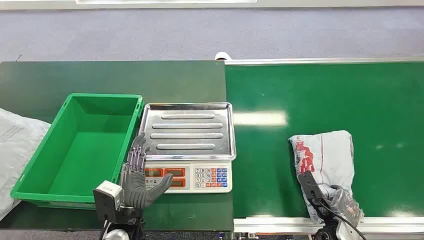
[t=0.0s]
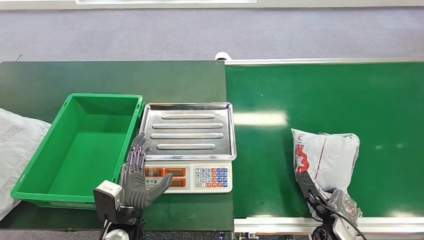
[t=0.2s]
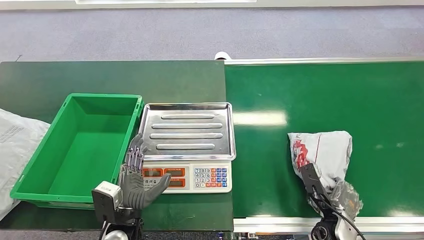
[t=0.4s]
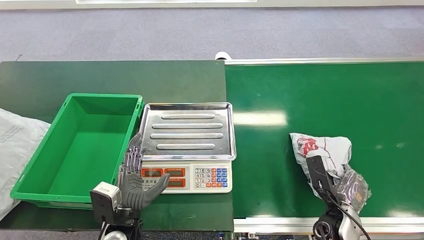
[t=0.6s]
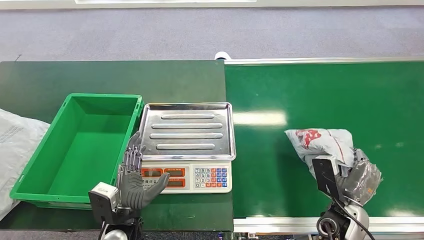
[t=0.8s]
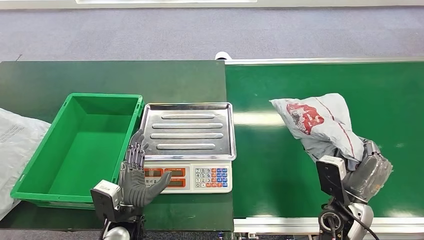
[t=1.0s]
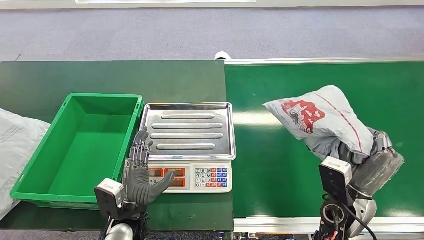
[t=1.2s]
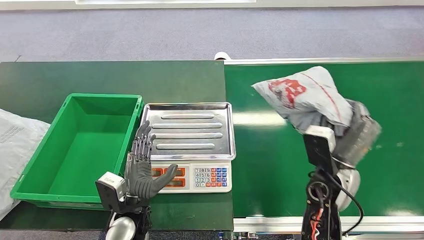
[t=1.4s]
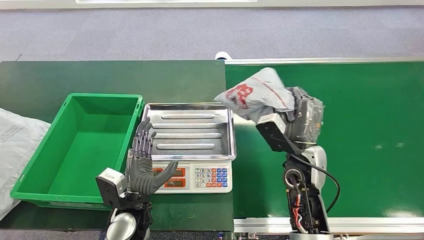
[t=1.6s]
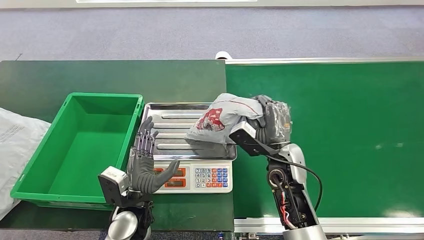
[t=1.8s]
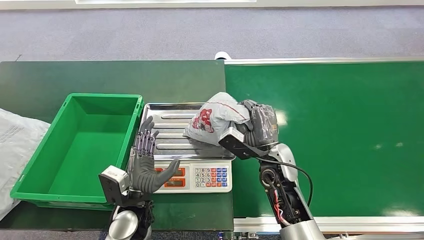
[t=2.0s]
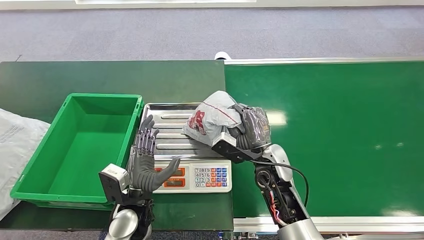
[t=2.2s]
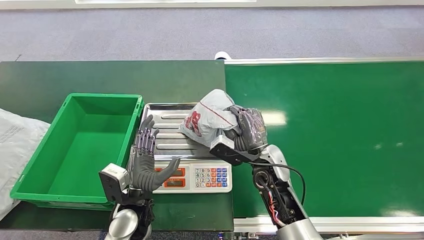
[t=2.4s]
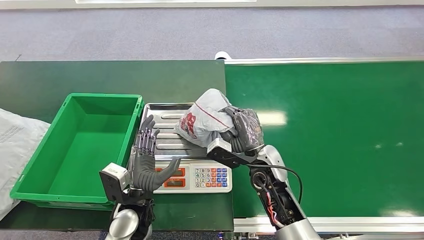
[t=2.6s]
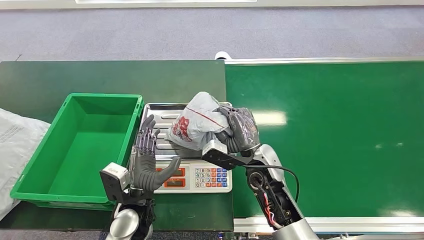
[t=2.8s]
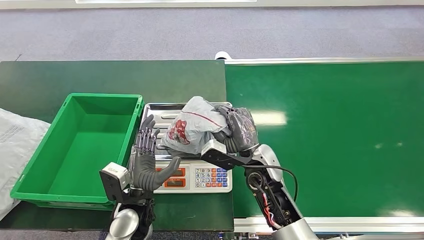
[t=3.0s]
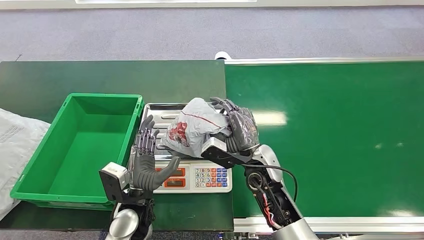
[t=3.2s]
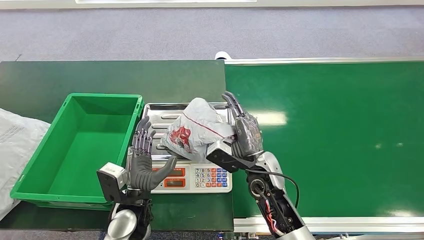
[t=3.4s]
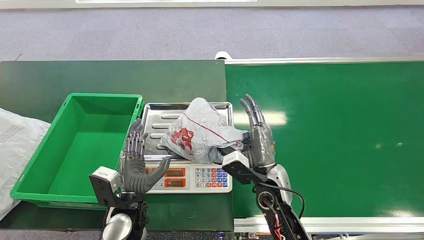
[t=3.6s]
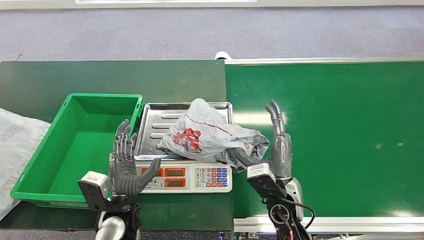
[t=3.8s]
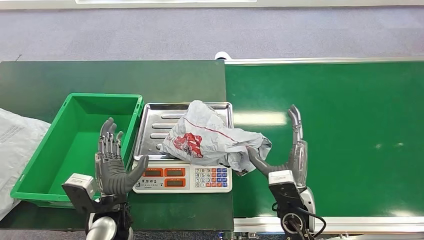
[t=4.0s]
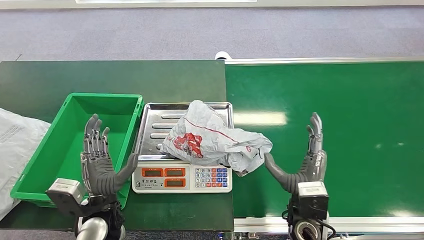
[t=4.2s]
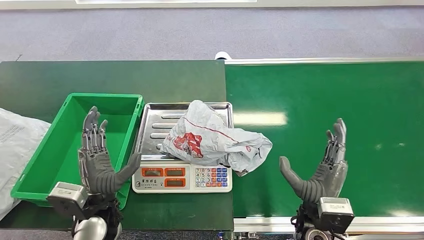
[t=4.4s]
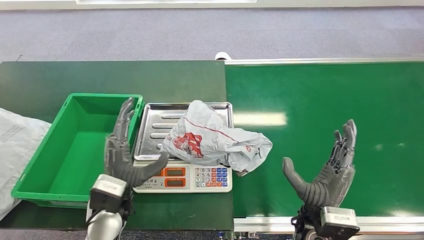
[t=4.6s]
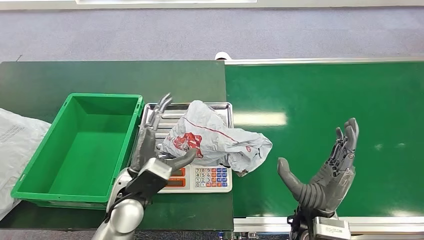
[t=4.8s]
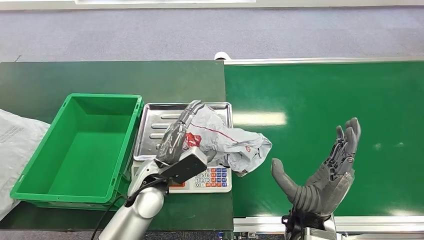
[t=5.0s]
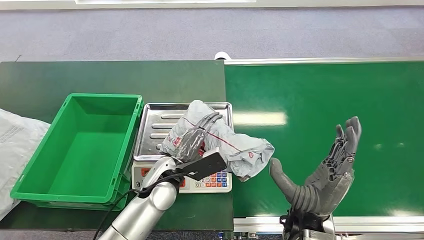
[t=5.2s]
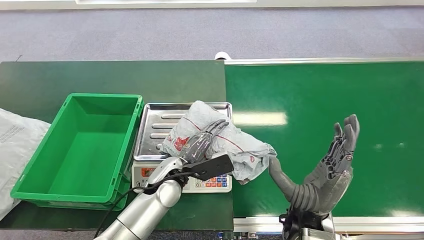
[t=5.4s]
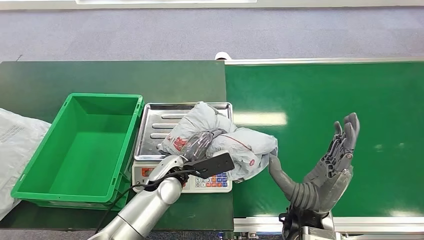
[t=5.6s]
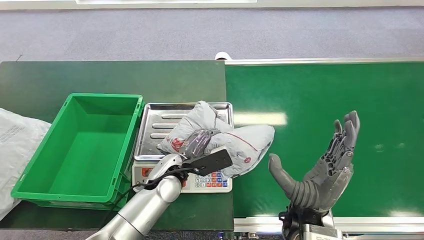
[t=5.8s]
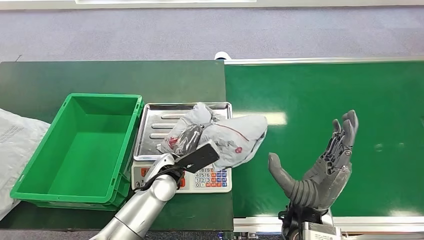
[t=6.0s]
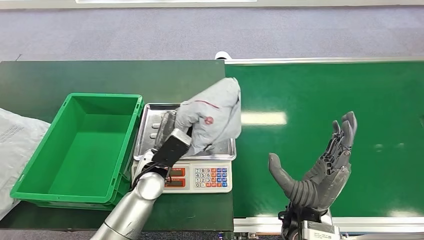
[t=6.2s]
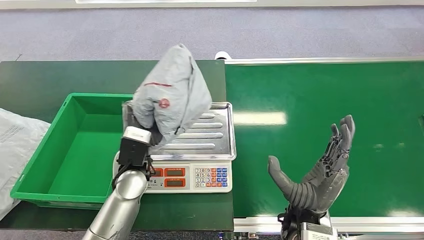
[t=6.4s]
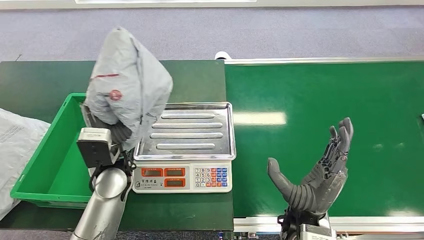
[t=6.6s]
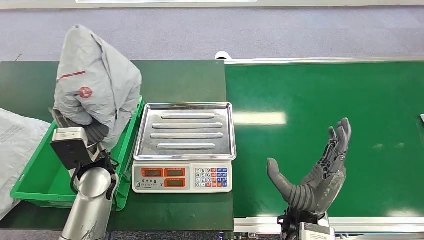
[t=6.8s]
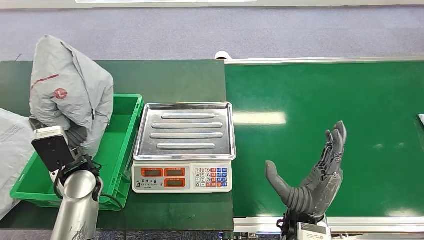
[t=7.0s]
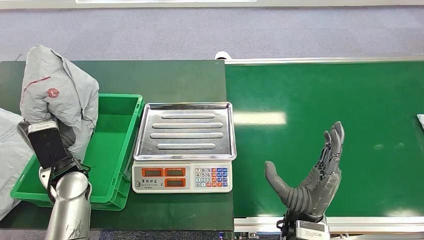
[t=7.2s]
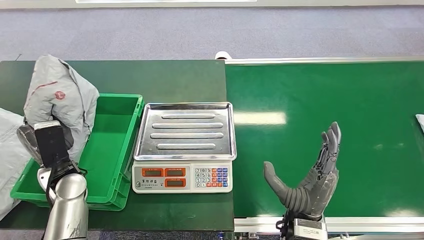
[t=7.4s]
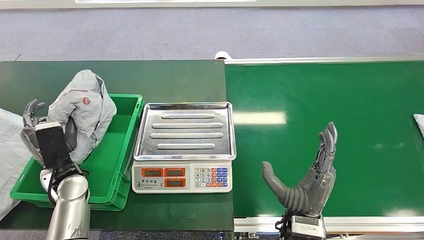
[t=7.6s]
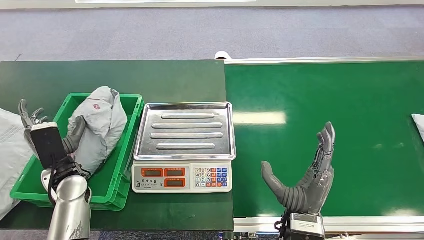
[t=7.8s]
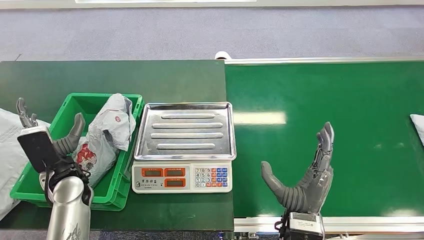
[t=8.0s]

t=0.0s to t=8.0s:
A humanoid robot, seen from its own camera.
Step, t=0.0s to t=1.0s: Pick up the package from the conveyor belt.
Step, t=1.8s to t=3.4s: Place the package onto the inbound machine.
Step, t=5.8s to t=6.4s: Pick up the package from the inbound machine.
Step, t=7.2s to t=8.0s: Place the package into the parcel locker.
t=1.6s to t=3.2s: The right hand goes roughly 10 cm to the left.
t=3.2s to t=4.8s: The left hand shifts roughly 5 cm upward; the right hand goes about 15 cm backward and to the right.
t=4.8s to t=6.4s: The left hand heads forward, covering some 5 cm.

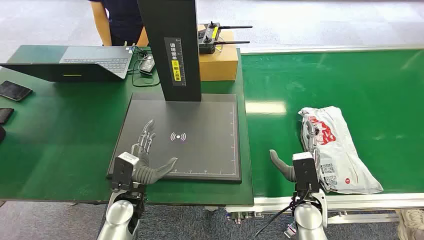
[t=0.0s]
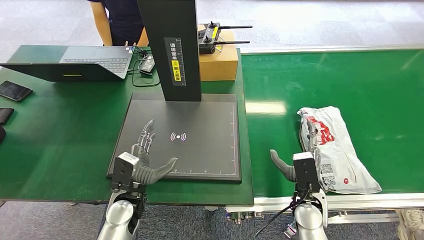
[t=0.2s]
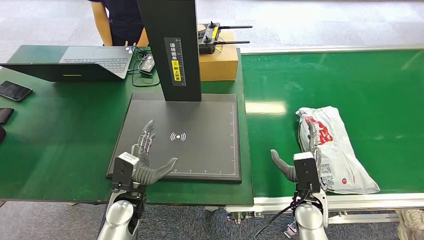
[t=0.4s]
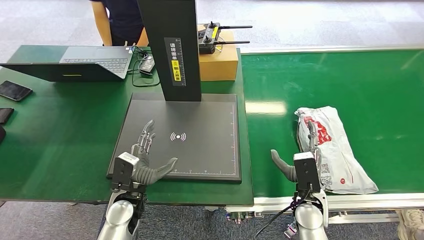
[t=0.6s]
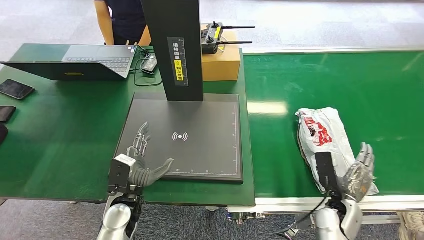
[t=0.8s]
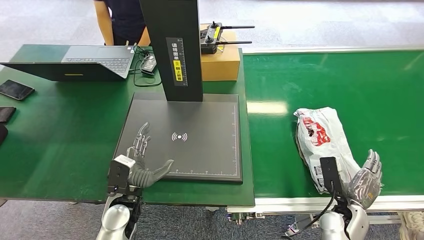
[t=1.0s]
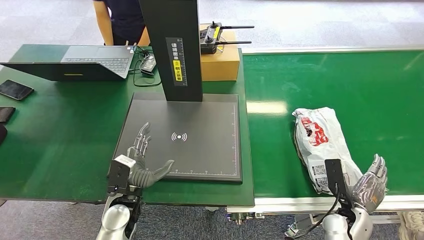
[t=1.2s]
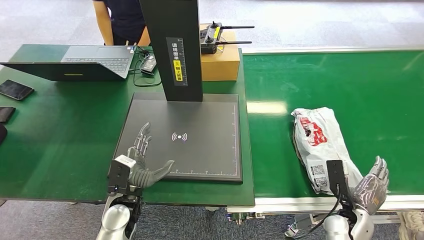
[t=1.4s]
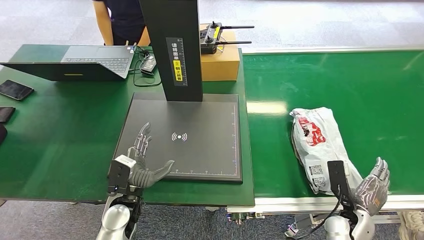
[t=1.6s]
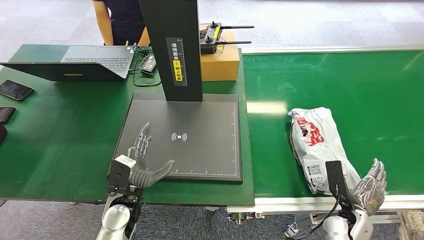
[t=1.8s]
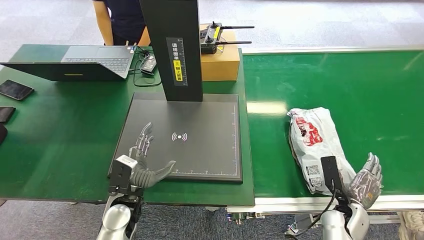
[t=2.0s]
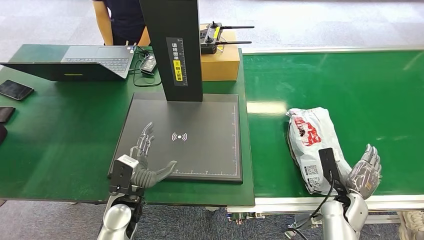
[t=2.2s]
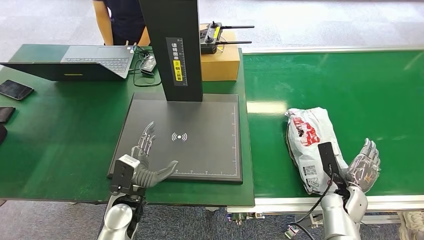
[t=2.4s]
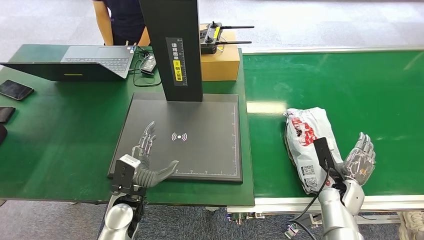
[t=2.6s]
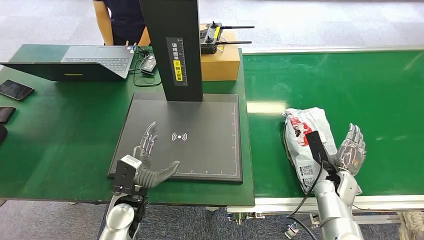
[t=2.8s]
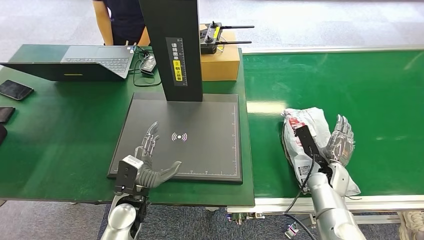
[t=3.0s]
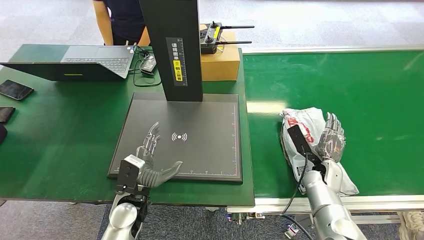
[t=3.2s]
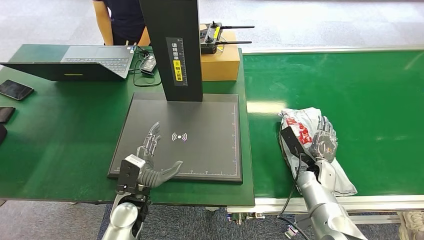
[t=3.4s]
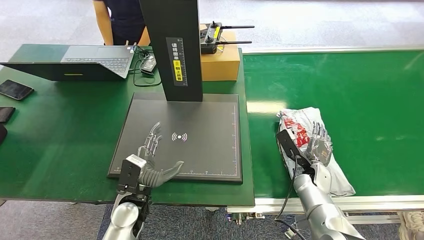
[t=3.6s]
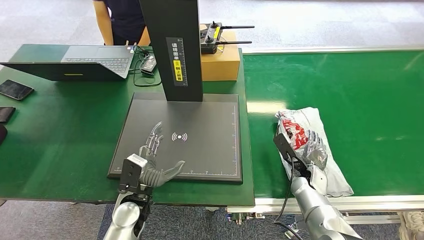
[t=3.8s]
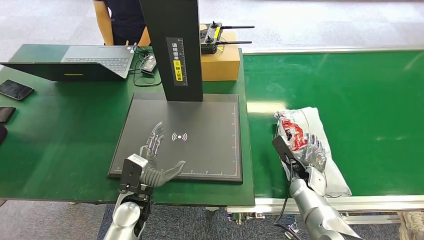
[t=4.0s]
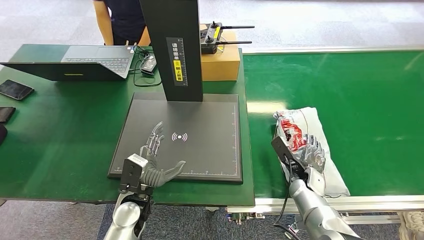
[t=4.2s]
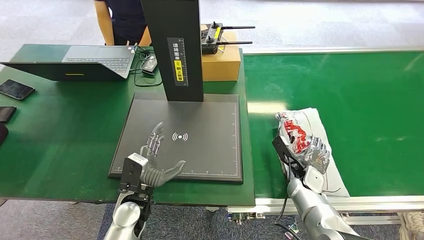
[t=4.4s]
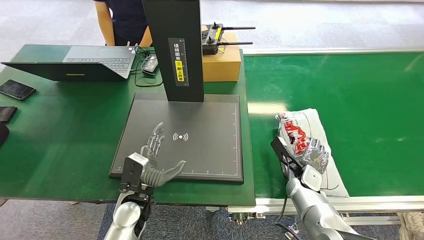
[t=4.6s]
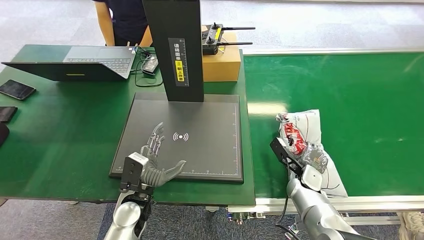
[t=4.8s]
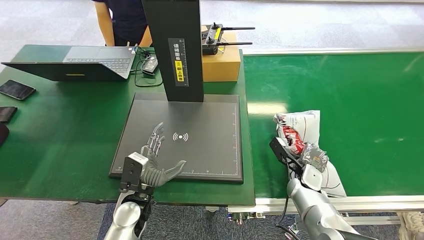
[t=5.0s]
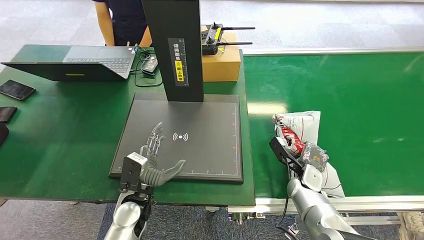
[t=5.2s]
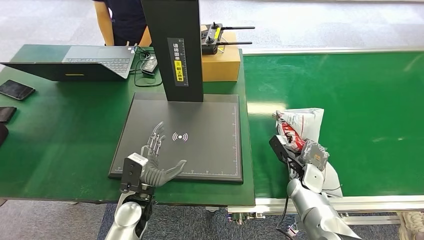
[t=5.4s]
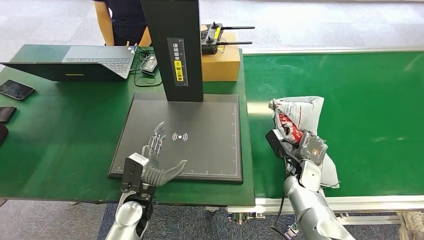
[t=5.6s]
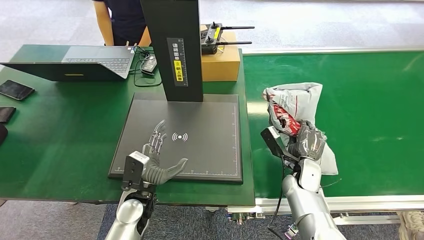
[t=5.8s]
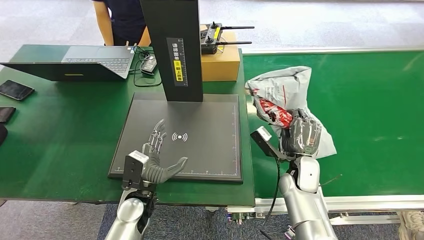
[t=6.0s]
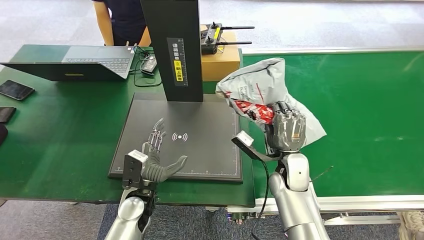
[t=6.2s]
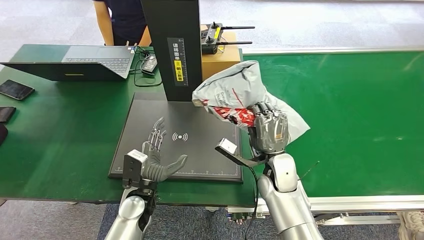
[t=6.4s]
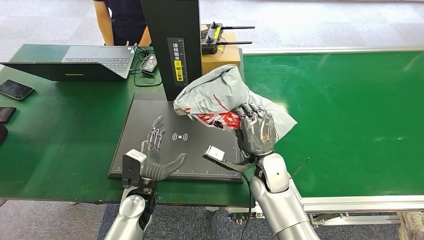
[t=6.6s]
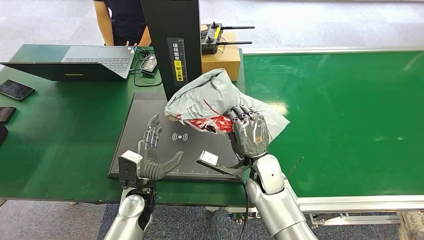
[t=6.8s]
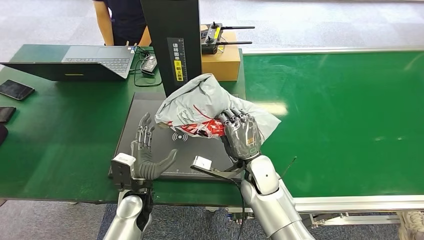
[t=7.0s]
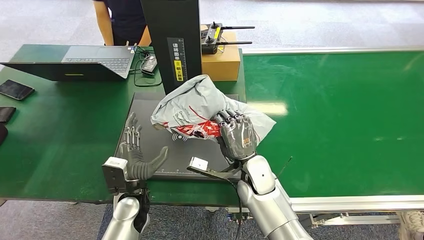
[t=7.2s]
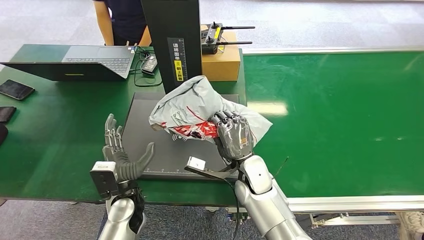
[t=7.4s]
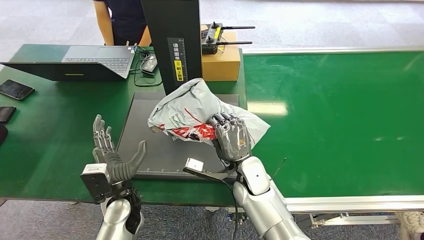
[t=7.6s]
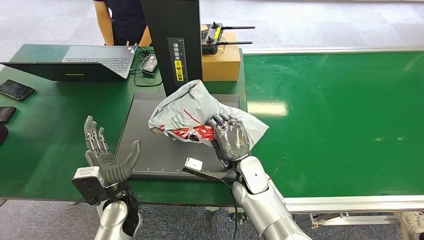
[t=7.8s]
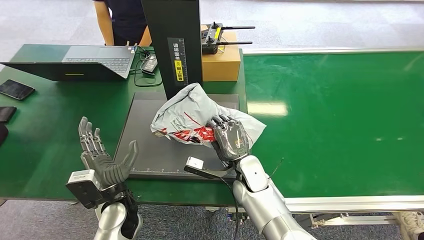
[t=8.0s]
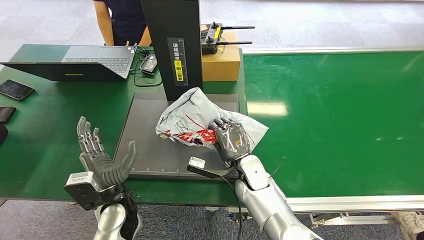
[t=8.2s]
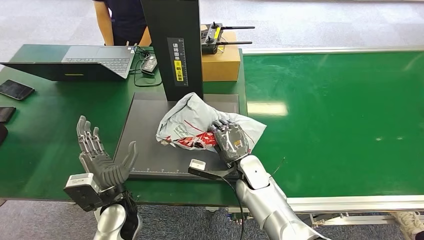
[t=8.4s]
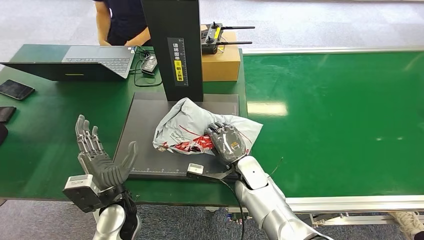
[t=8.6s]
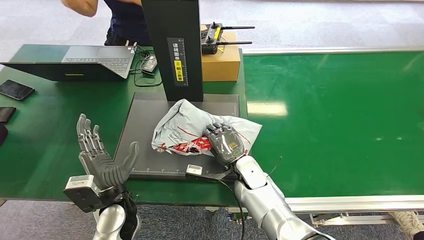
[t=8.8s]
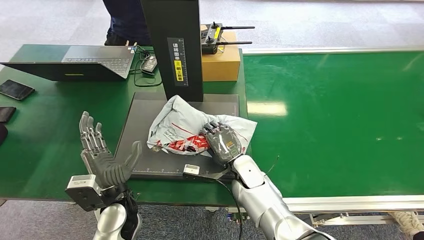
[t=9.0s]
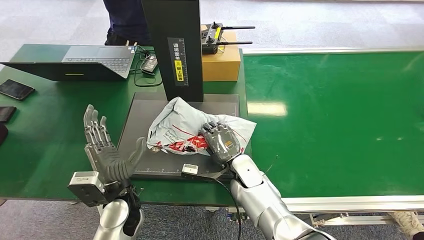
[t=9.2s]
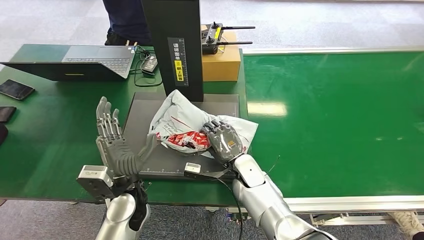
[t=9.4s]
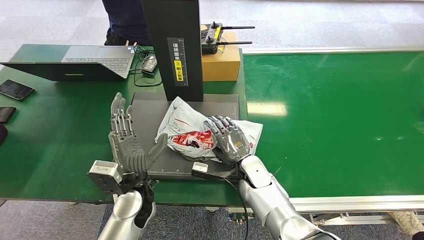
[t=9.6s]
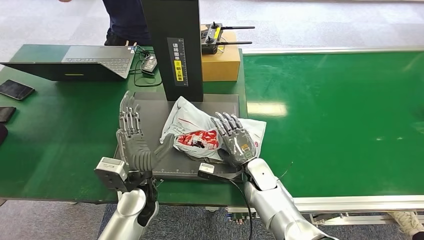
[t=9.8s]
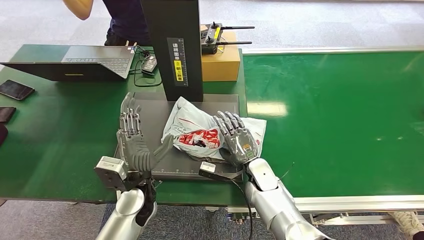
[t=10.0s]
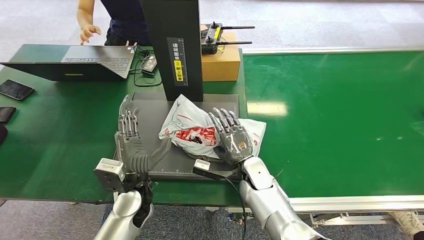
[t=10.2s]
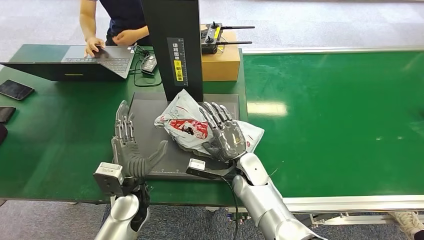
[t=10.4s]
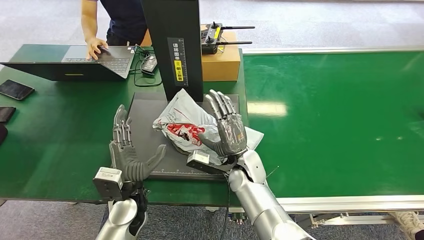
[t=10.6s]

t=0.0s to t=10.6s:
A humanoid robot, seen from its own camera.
Step, t=0.0s to t=6.2s: Pick up the package from the conveyor belt.
t=1.6s to t=3.0s: The right hand travels forward by approximately 10 cm.
t=3.0s to t=4.6s: The right hand shifts about 5 cm to the left.
t=4.6s to t=6.0s: The right hand is displaced upward by some 10 cm.
t=7.6s to t=9.0s: There are only small adjustments of the hands.
